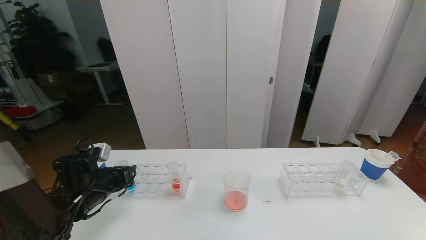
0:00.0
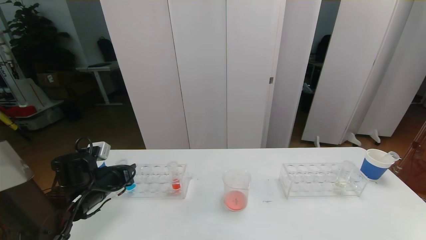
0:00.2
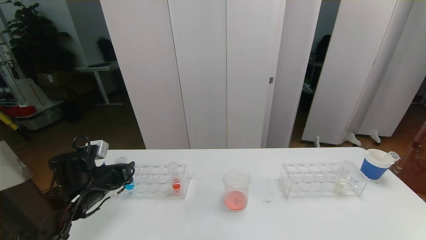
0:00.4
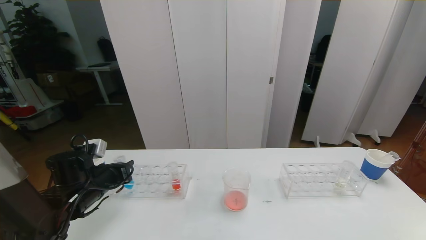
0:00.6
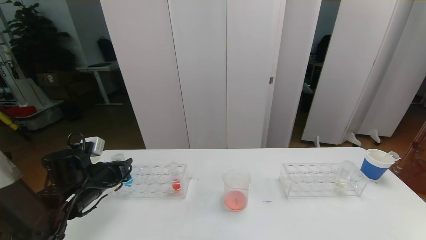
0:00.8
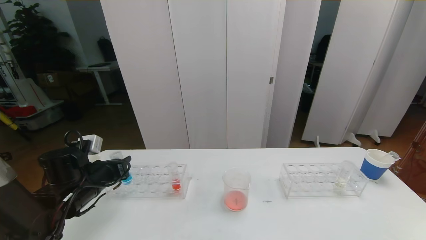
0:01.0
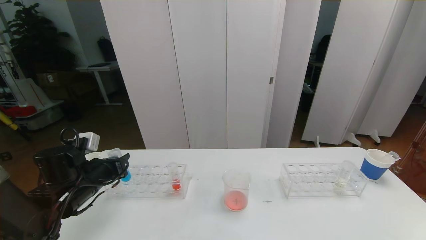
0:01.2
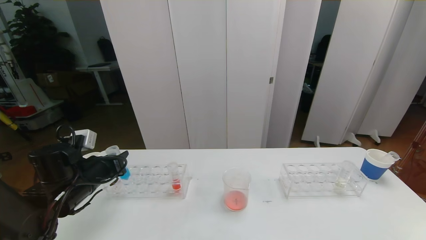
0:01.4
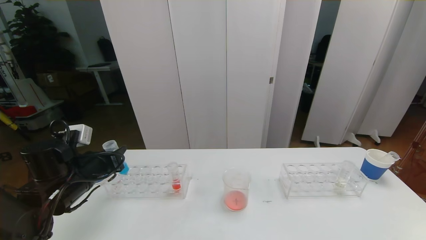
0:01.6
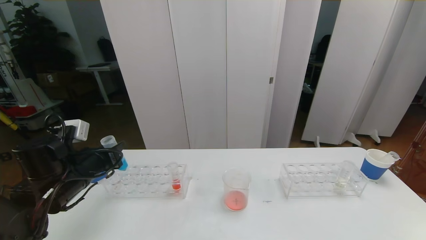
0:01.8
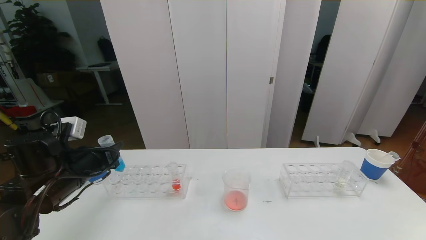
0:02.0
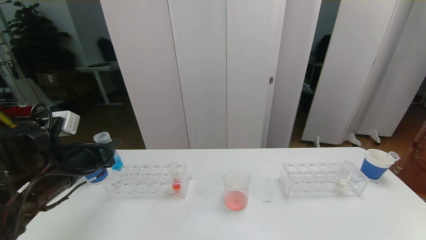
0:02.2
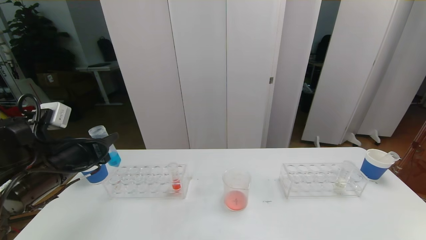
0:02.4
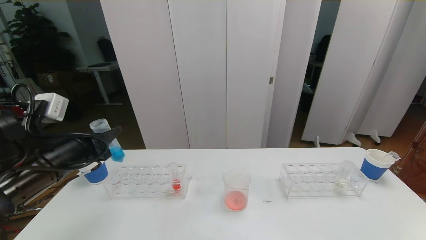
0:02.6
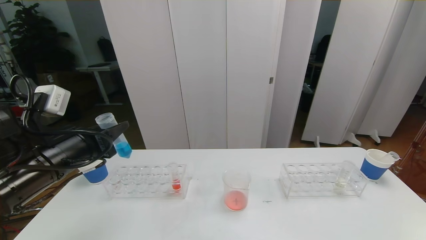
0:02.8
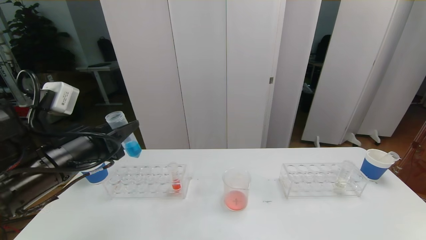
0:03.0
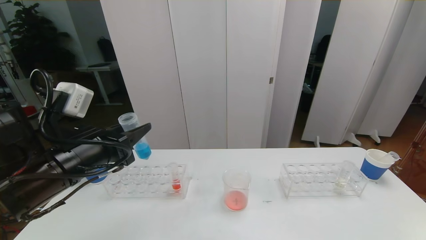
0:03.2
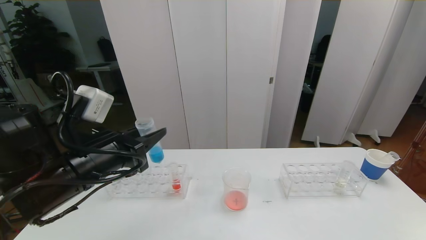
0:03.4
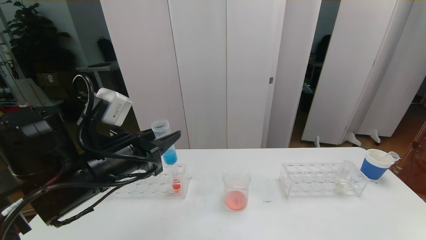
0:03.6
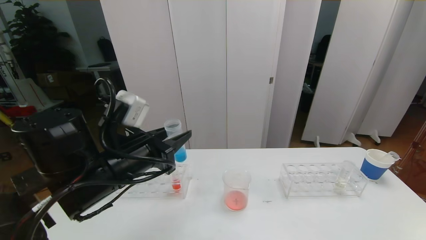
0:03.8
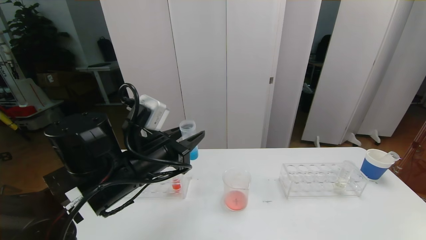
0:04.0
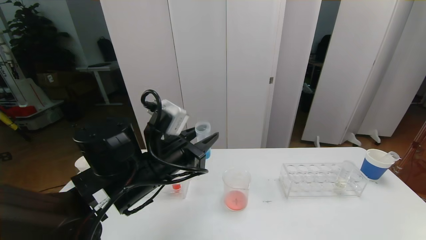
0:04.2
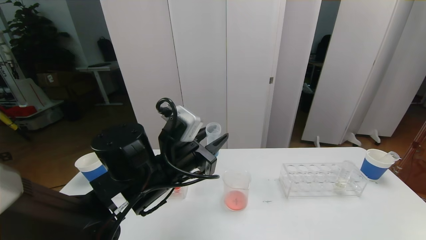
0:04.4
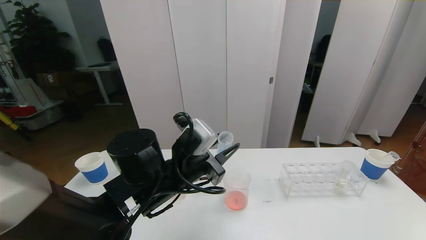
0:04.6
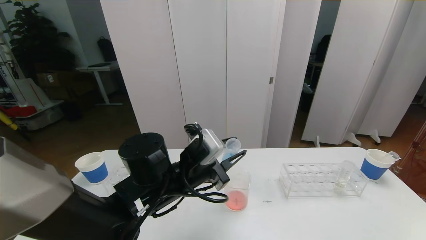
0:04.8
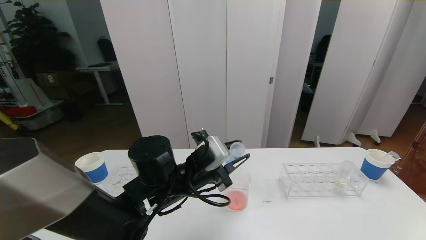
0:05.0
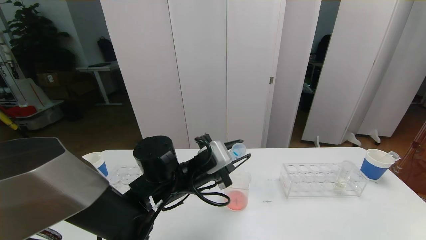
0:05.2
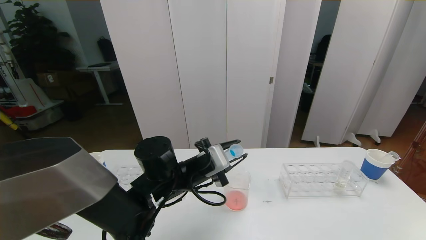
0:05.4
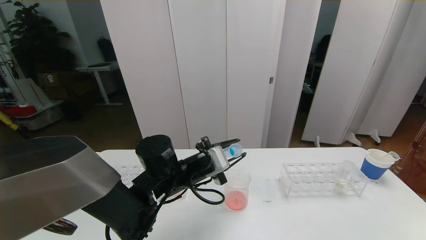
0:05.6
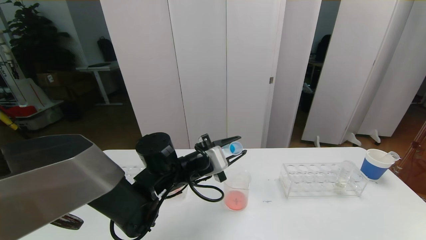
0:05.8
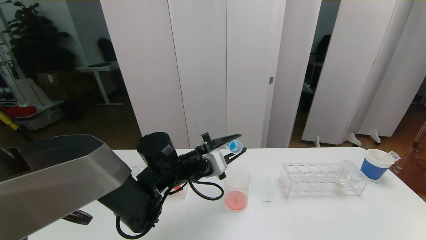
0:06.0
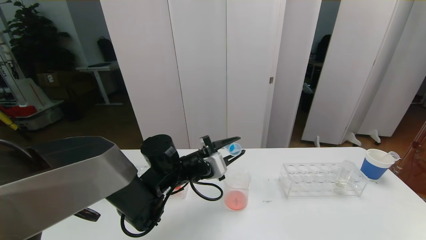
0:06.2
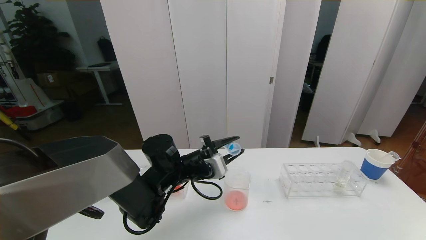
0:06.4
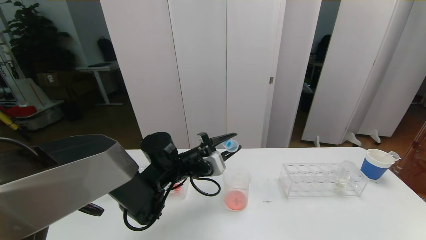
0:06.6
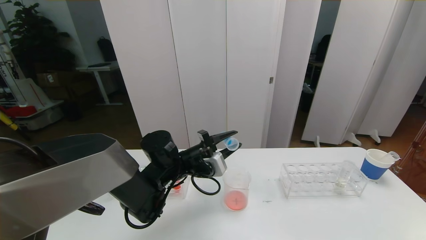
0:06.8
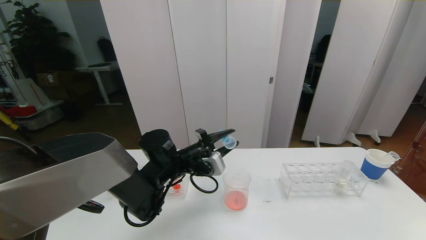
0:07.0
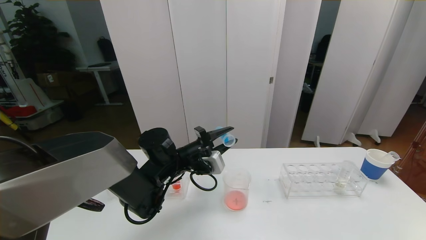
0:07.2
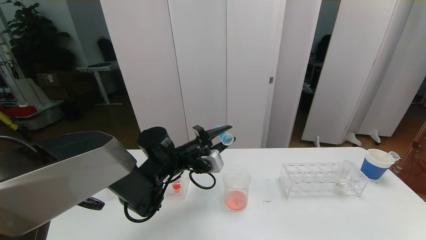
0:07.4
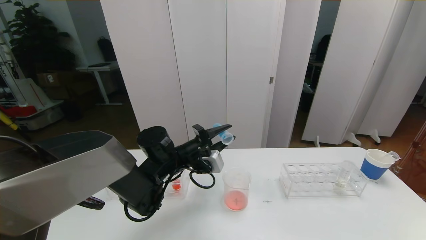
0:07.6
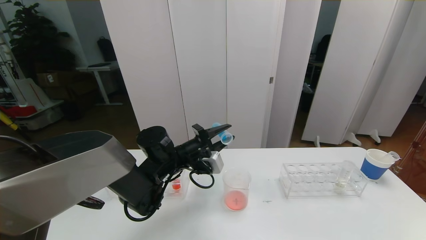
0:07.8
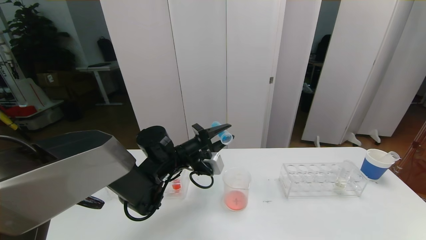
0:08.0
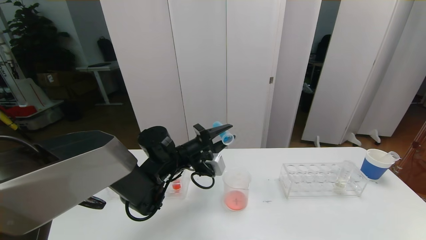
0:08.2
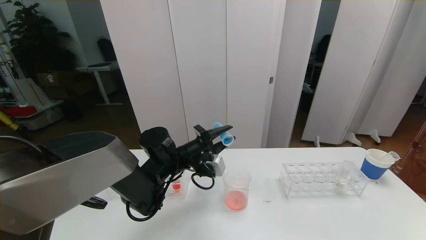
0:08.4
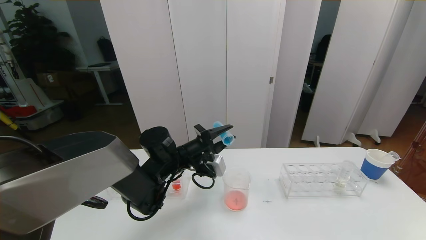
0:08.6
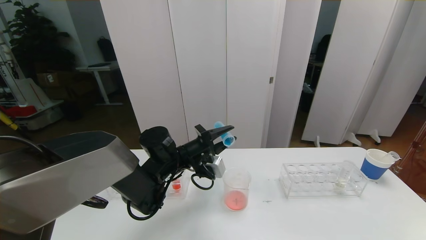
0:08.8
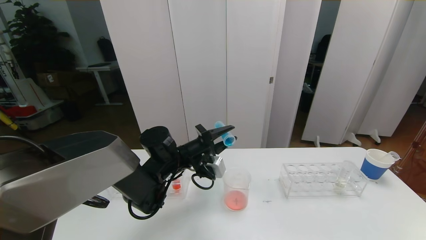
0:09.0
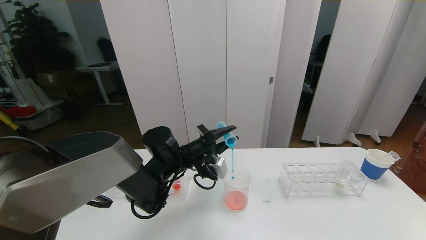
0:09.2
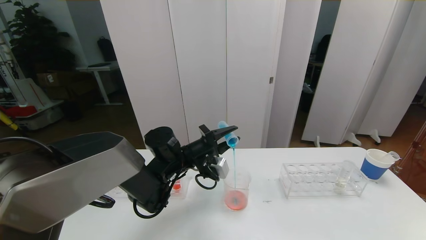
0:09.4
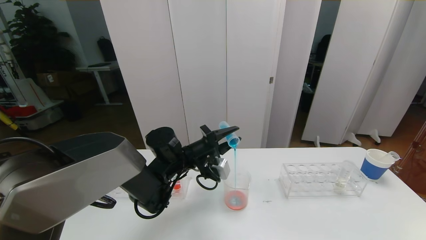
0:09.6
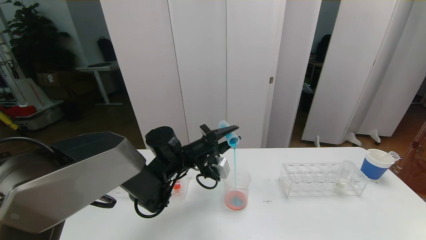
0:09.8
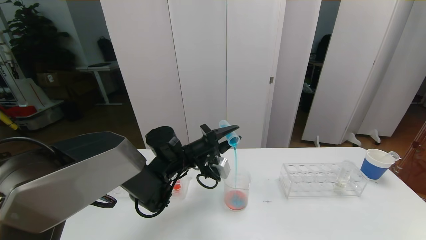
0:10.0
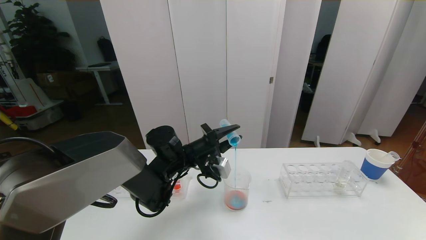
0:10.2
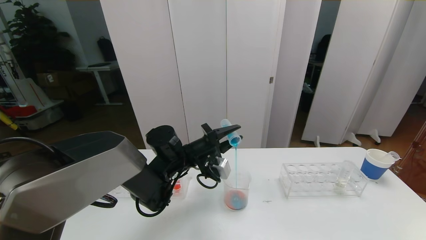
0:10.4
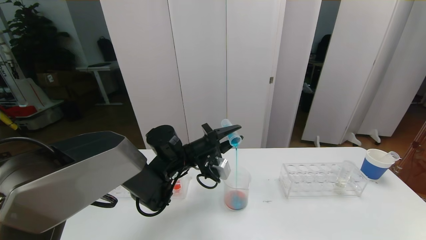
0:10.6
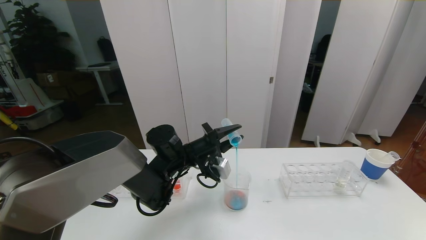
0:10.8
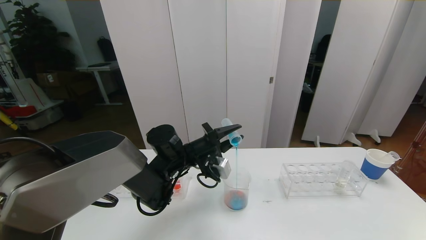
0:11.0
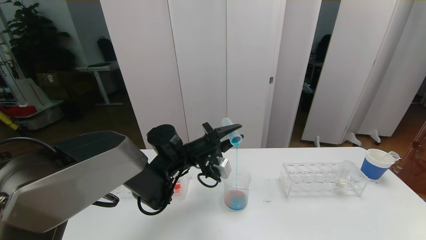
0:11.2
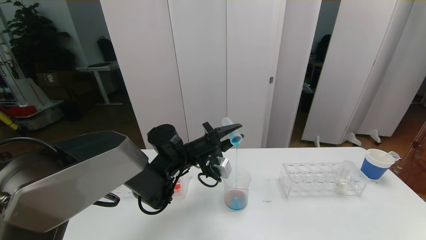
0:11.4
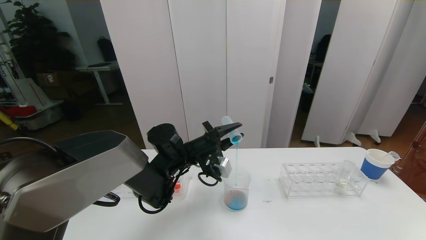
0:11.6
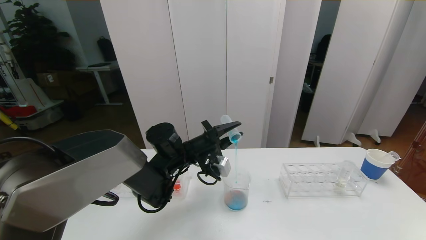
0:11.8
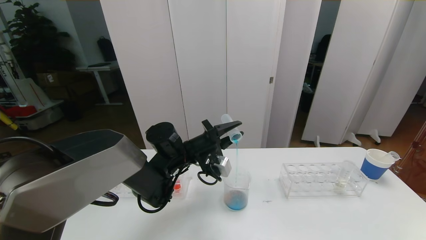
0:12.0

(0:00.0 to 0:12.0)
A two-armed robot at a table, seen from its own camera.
Task of the whole recording: pick up the test tube with red pigment the test tube with blue pigment and the test tube with white pigment by grippers and pour them into the beaker.
0:00.0 - 0:01.6: The left gripper travels upward by roughly 5 cm.
0:01.6 - 0:03.0: The left gripper is displaced upward, backward and to the right by approximately 15 cm.
0:03.0 - 0:04.4: The left gripper is displaced to the right by about 15 cm.
0:04.4 - 0:06.0: The left gripper goes some 10 cm forward and downward.
0:07.6 - 0:09.0: The grippers make only small movements.
0:09.0 - 0:10.4: Both grippers stay put.
0:10.4 - 0:12.0: Both grippers stay about where they are.

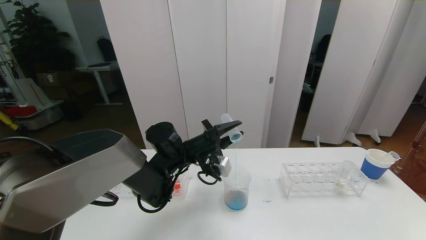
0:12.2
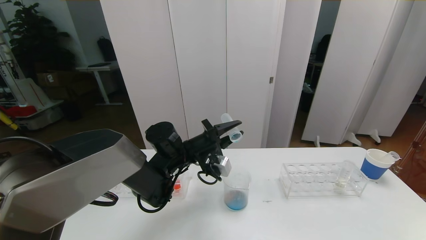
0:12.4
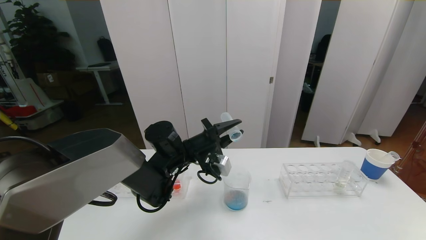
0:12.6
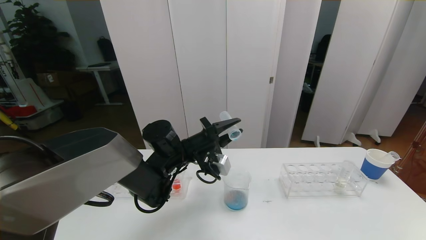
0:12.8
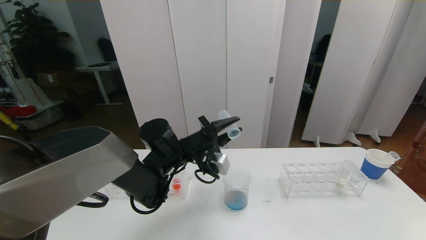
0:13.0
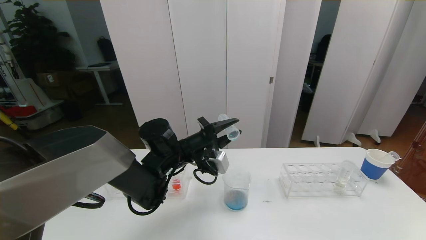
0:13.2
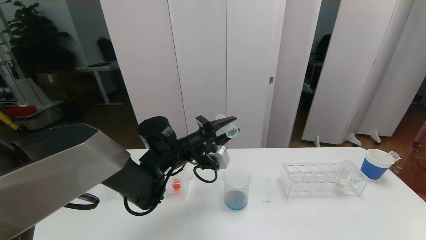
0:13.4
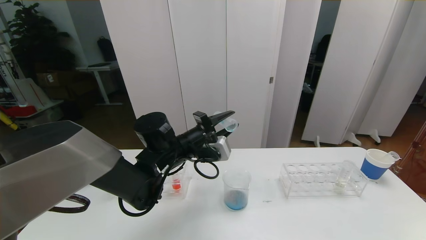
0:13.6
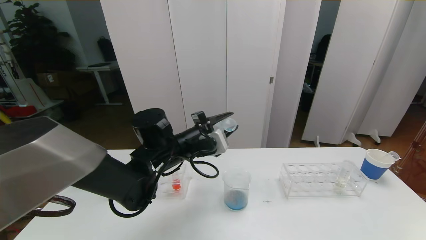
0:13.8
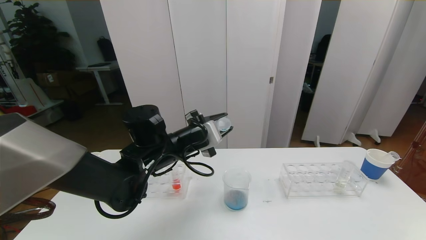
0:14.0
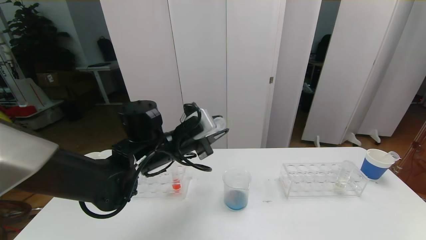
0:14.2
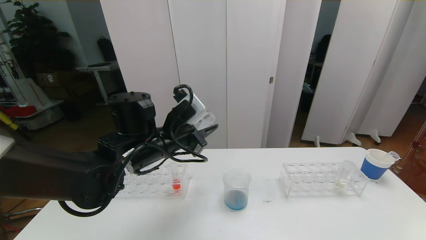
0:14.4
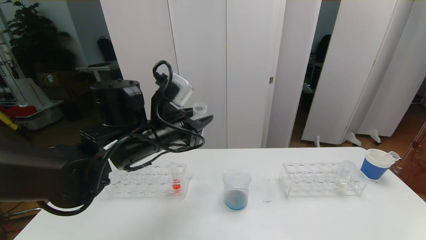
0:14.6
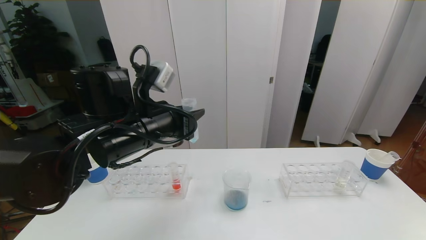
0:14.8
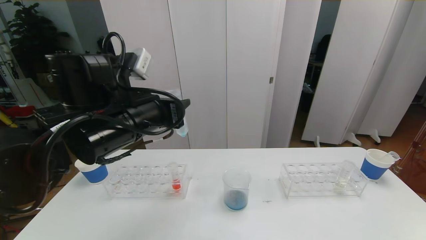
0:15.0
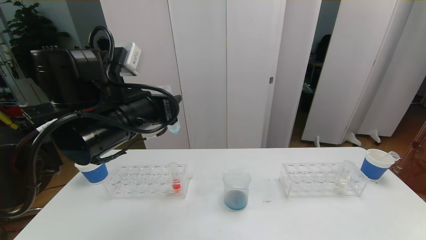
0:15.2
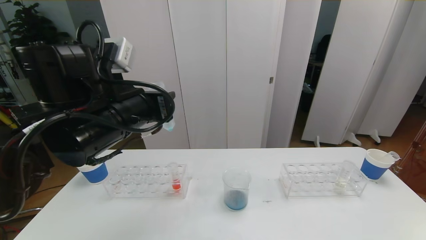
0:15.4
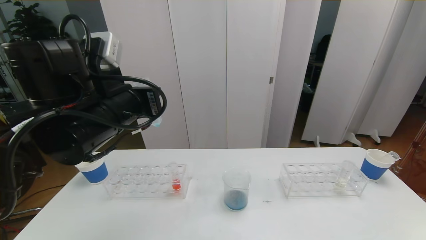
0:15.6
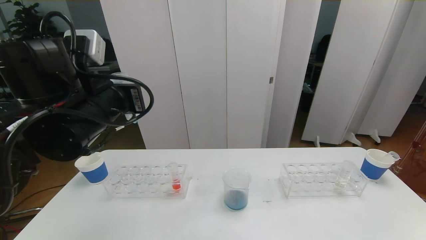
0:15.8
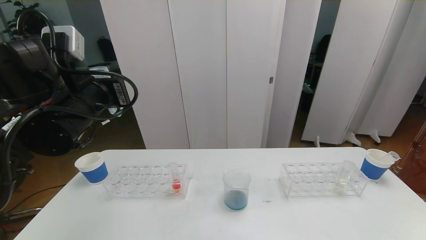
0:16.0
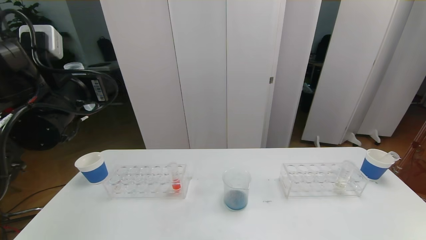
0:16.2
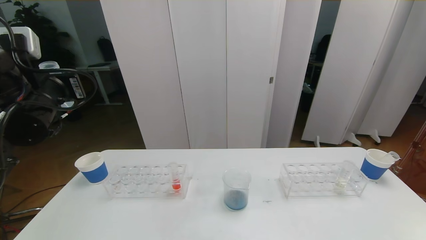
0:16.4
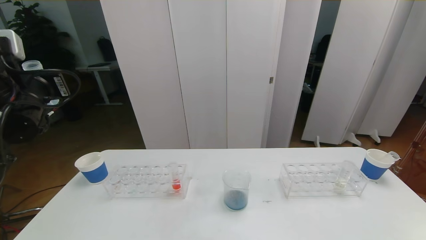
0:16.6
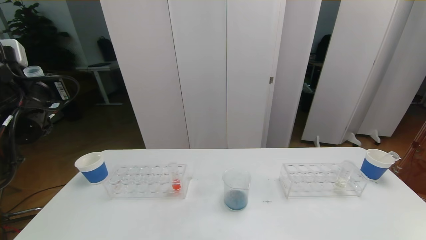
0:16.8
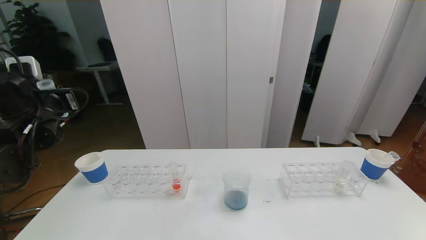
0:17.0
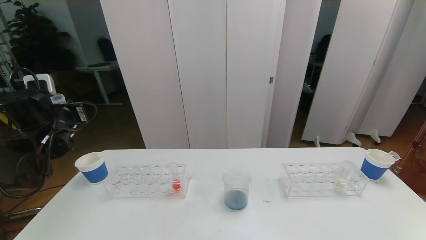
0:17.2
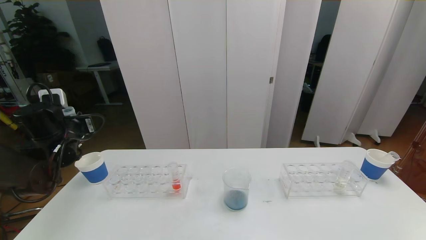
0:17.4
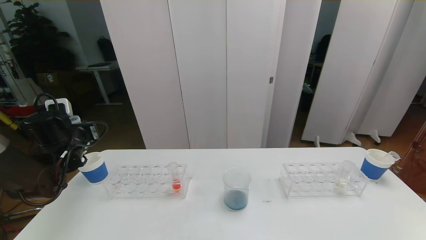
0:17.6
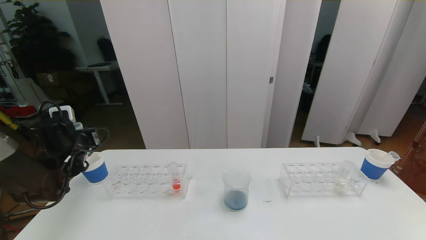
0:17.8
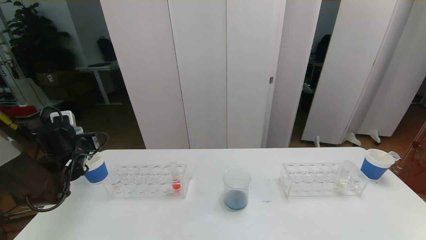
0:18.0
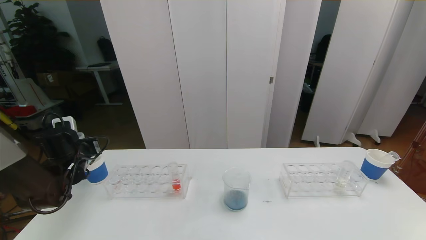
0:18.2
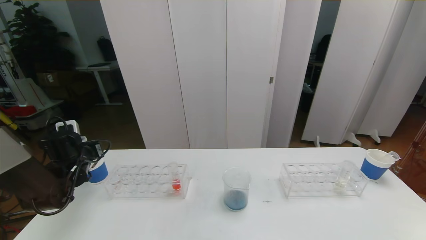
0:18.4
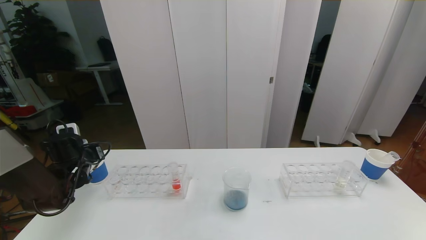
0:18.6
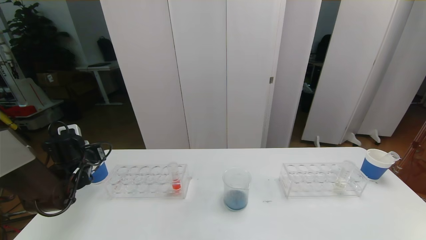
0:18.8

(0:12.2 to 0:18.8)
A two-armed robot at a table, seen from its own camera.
Task of the whole recording: pick up the test tube with red pigment the test tube with blue pigment and the test tube with white pigment by grippers and pour them into the beaker.
0:12.2 - 0:13.8: The left gripper changes place by some 5 cm.
0:13.8 - 0:15.4: The left gripper heads upward, backward and to the left, covering about 15 cm.
0:15.4 - 0:17.2: The left gripper shifts approximately 25 cm to the left, forward and downward.
0:17.2 - 0:18.8: The left gripper travels downward by roughly 10 cm.
